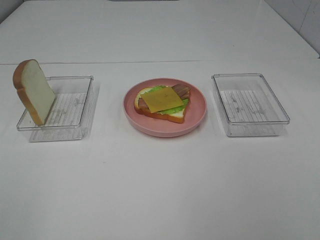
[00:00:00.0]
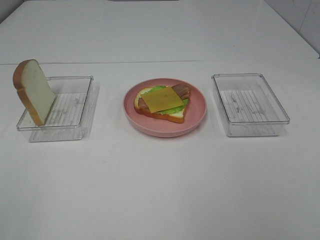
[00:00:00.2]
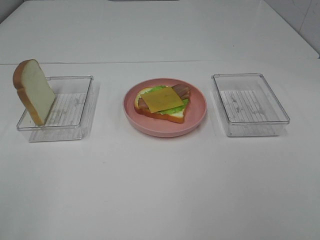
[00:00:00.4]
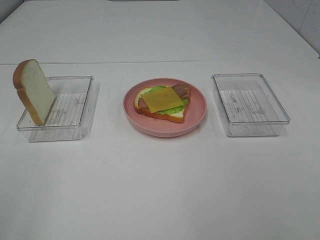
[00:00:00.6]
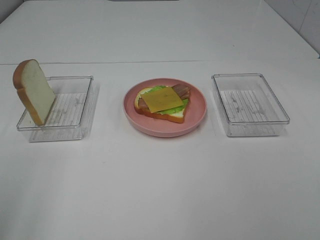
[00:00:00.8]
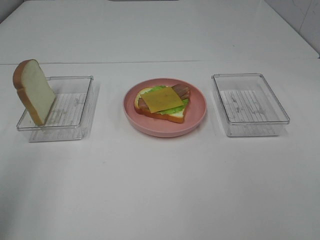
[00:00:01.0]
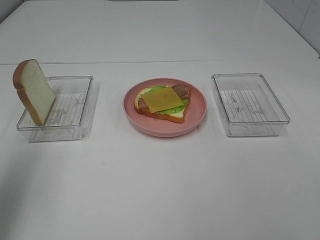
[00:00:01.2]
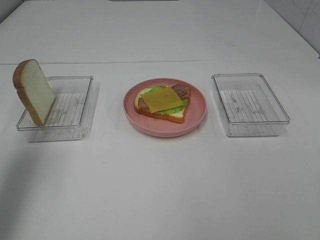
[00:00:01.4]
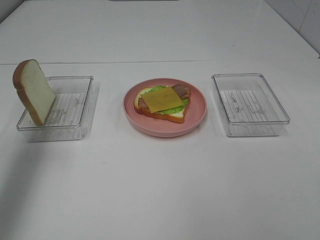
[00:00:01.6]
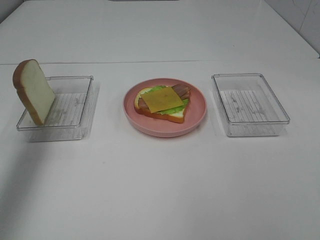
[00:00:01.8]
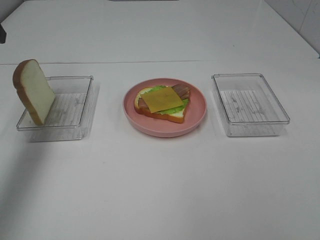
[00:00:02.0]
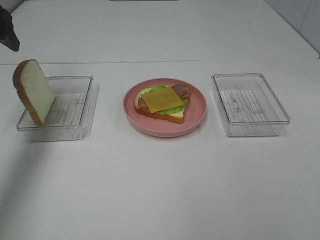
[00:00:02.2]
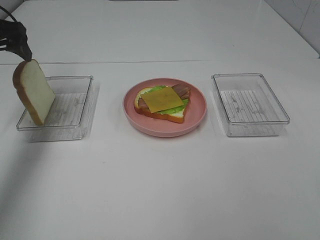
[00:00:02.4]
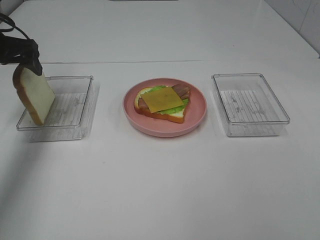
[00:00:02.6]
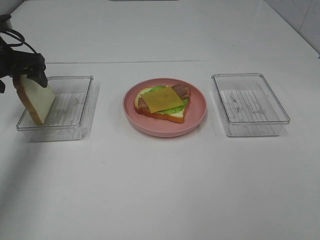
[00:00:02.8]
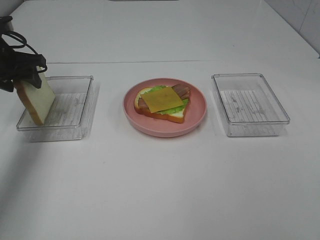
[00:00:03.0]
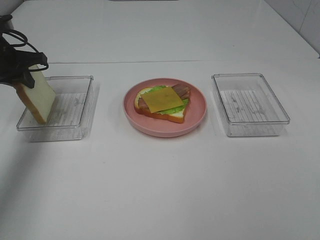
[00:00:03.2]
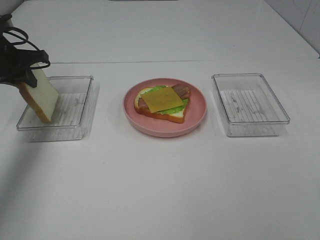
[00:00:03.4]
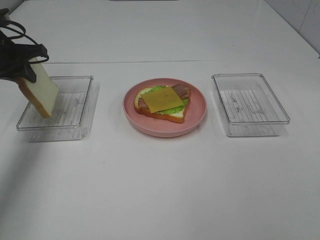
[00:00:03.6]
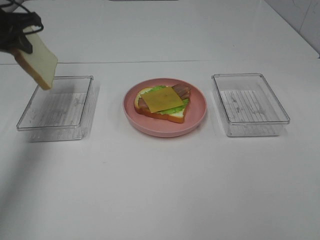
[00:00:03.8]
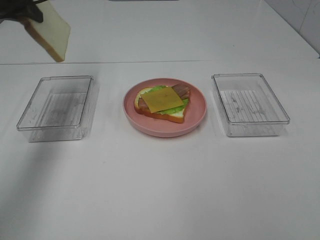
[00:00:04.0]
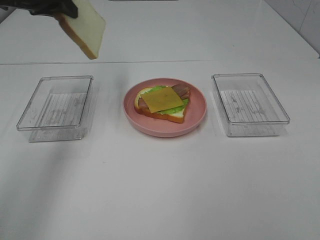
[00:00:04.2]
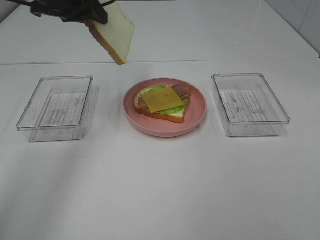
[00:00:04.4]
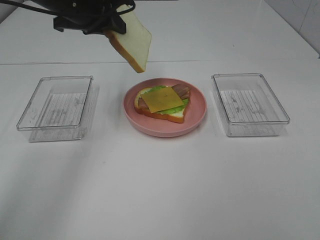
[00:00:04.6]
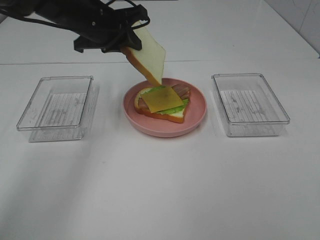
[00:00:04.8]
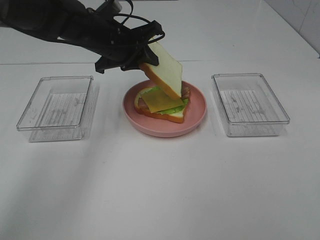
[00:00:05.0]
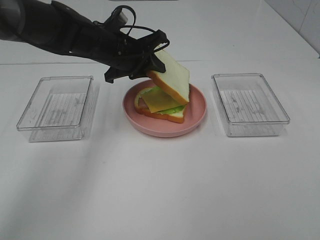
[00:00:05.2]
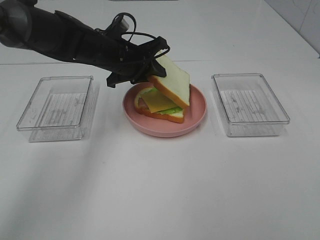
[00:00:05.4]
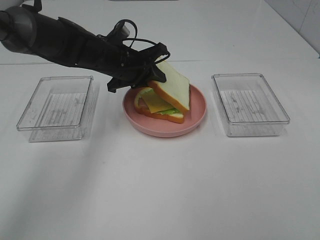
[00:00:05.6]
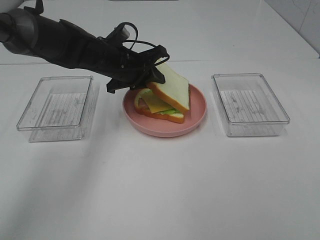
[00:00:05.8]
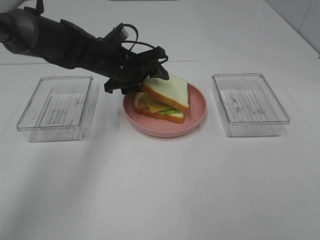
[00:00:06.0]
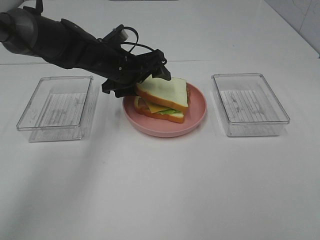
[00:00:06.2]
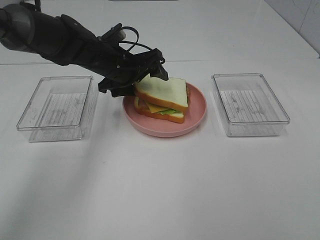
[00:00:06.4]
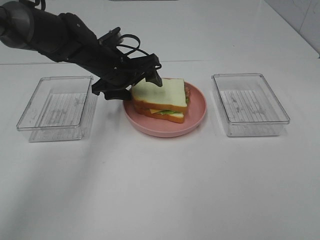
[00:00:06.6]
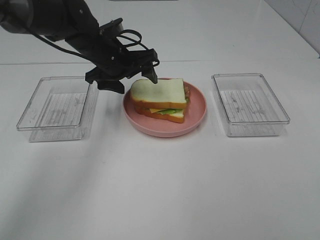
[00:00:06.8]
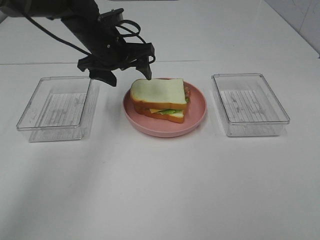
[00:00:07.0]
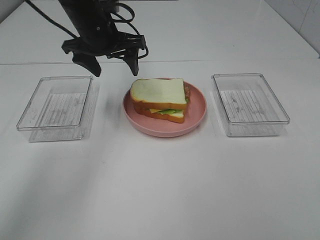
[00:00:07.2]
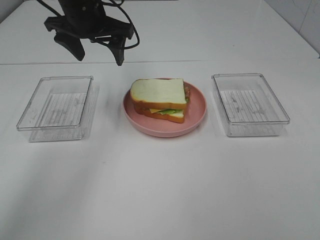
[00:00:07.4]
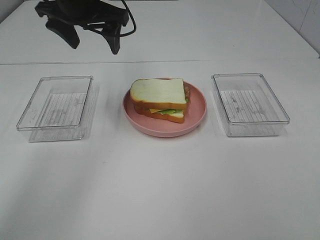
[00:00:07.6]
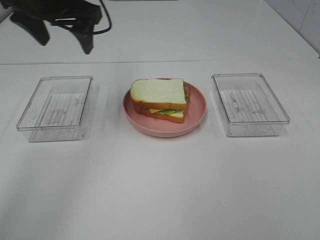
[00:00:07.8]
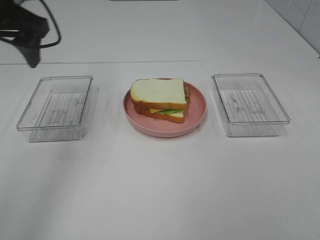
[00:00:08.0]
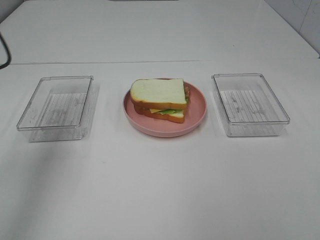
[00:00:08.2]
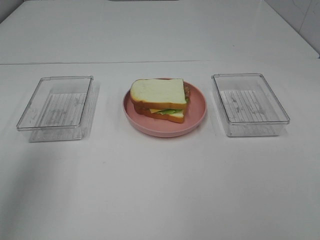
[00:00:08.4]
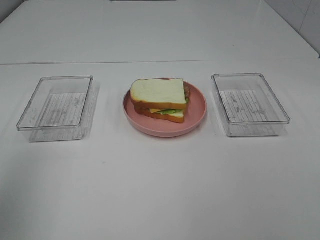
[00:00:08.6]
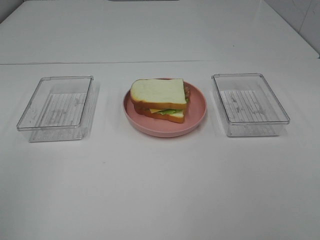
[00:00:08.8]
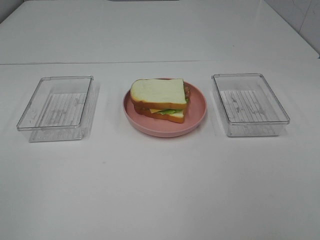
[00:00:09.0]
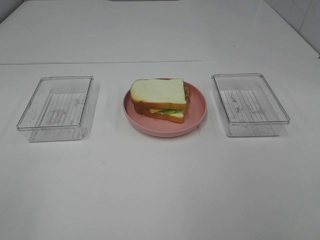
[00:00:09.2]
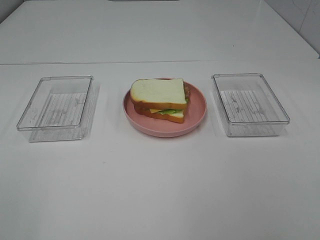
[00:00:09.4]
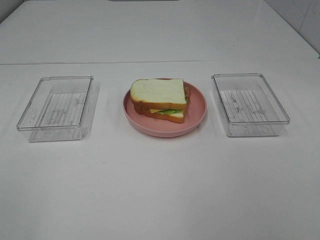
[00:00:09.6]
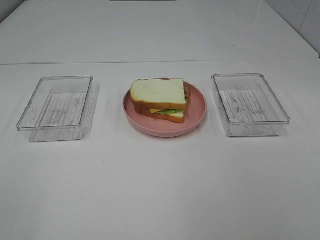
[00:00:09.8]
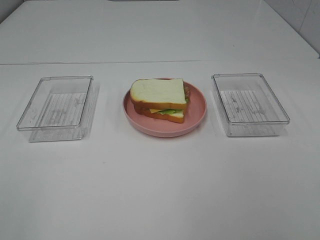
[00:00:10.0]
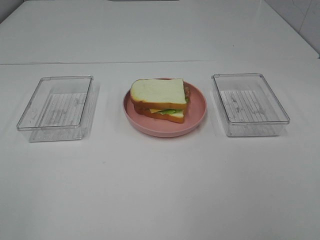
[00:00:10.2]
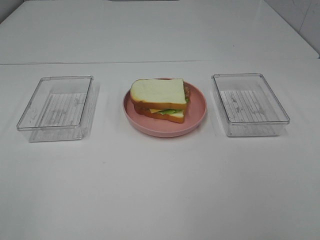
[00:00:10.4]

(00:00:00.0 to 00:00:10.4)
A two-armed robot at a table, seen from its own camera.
Task of the whole recording: Make sandwiches.
Step, 00:00:00.0 - 00:00:03.6: Left hand:grab the cheese slice.
Step, 00:00:03.8 - 00:00:07.0: Left hand:place the bread slice on the cheese slice.
00:00:00.0 - 00:00:01.4: The left gripper moves forward, some 25 cm.
00:00:01.4 - 00:00:03.0: The left gripper moves forward and downward, approximately 25 cm.
00:00:03.0 - 00:00:04.4: The left gripper goes approximately 20 cm to the right and upward, and closes up.
00:00:04.4 - 00:00:06.0: The left gripper heads downward and to the right, covering some 15 cm, and opens its fingers.
00:00:06.0 - 00:00:07.4: The left gripper is displaced upward by some 10 cm.
00:00:07.4 - 00:00:09.0: The left gripper travels backward and to the left by approximately 50 cm.

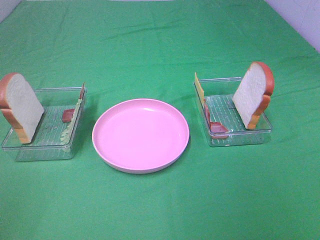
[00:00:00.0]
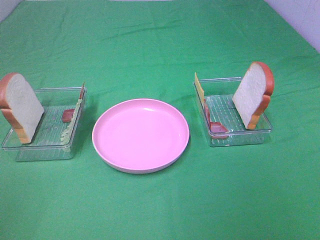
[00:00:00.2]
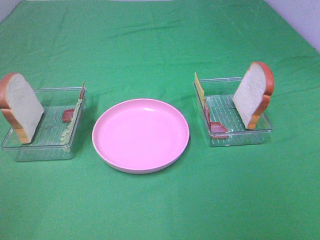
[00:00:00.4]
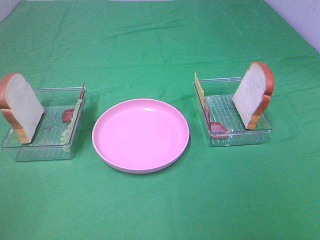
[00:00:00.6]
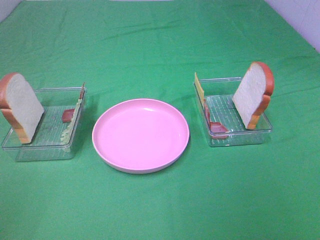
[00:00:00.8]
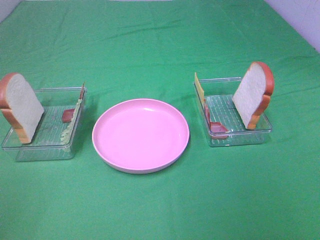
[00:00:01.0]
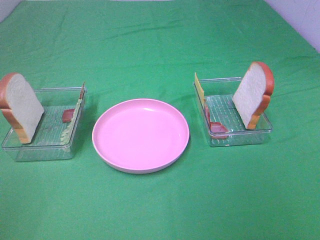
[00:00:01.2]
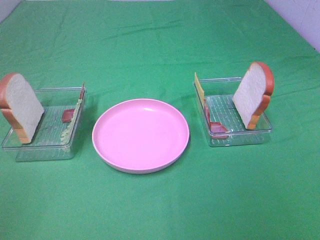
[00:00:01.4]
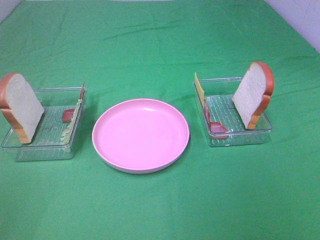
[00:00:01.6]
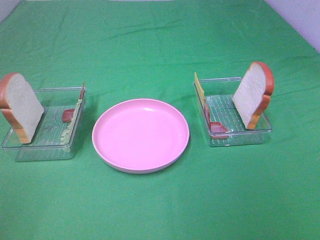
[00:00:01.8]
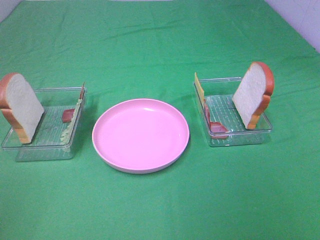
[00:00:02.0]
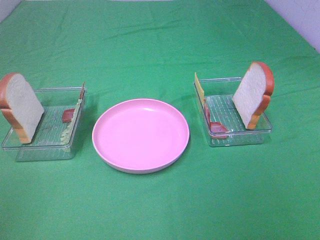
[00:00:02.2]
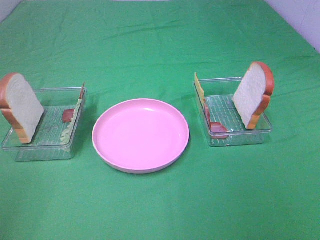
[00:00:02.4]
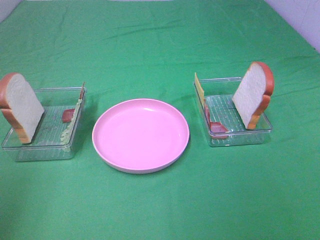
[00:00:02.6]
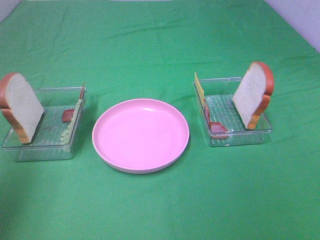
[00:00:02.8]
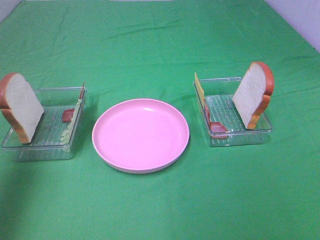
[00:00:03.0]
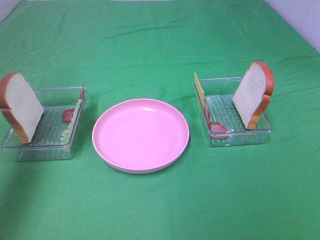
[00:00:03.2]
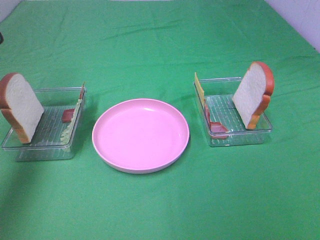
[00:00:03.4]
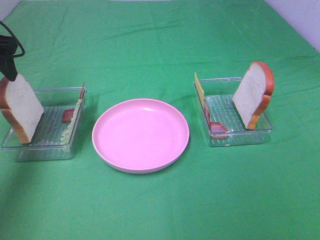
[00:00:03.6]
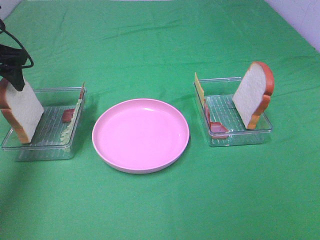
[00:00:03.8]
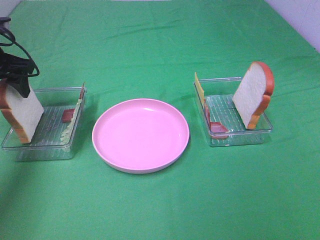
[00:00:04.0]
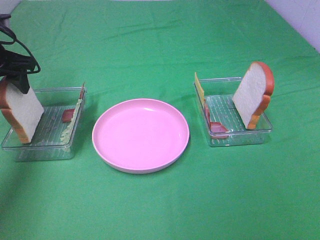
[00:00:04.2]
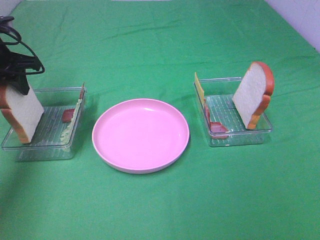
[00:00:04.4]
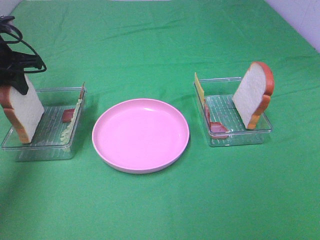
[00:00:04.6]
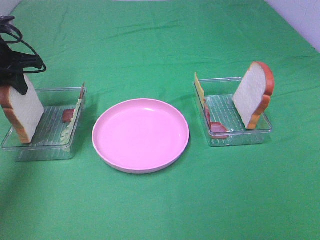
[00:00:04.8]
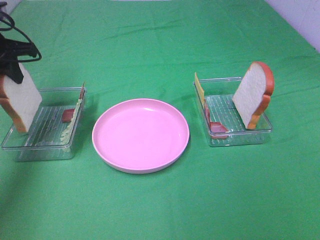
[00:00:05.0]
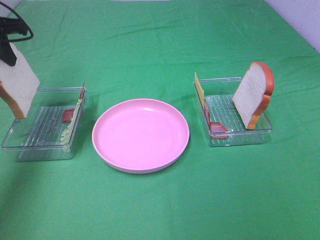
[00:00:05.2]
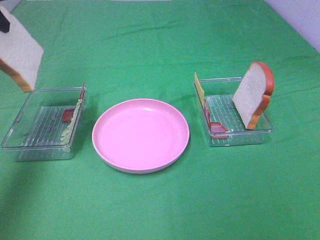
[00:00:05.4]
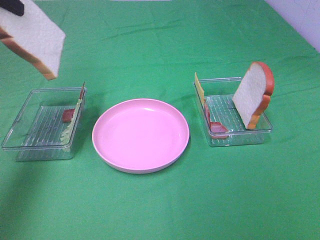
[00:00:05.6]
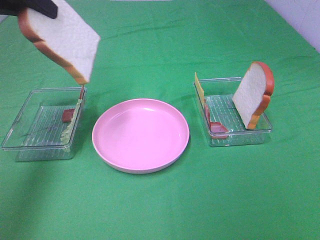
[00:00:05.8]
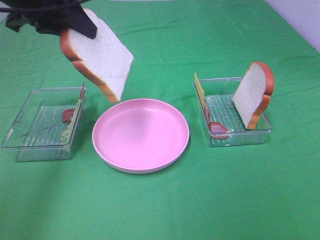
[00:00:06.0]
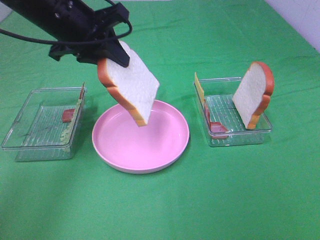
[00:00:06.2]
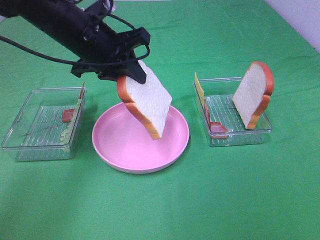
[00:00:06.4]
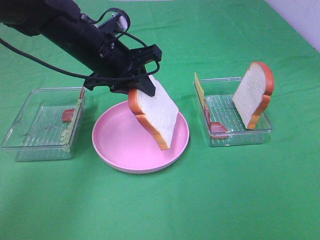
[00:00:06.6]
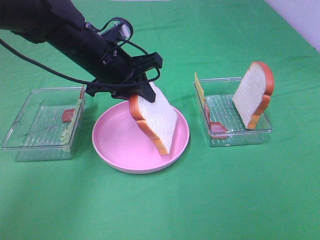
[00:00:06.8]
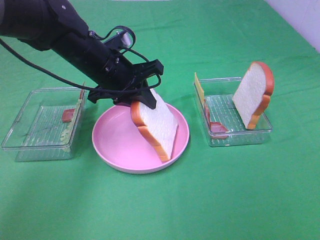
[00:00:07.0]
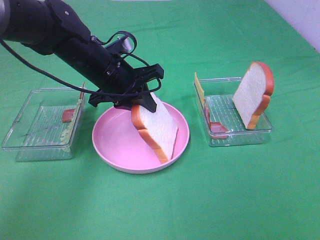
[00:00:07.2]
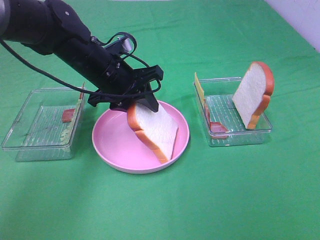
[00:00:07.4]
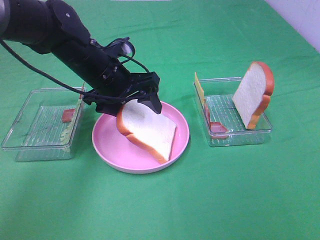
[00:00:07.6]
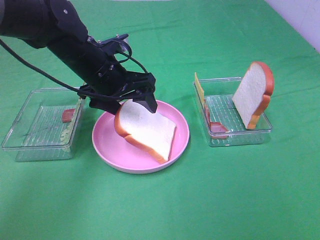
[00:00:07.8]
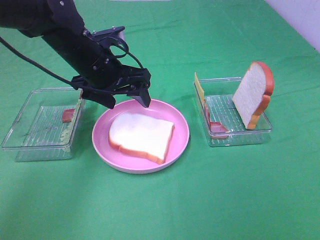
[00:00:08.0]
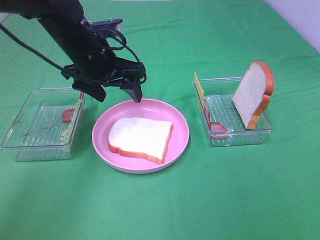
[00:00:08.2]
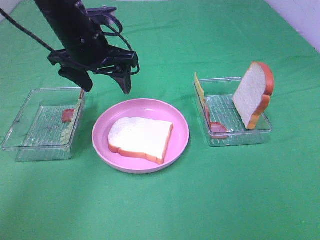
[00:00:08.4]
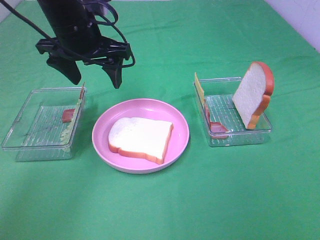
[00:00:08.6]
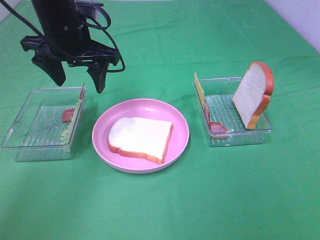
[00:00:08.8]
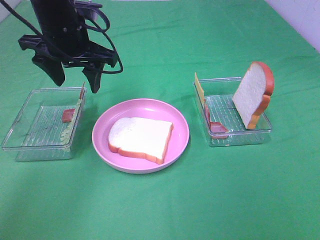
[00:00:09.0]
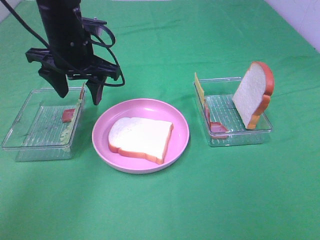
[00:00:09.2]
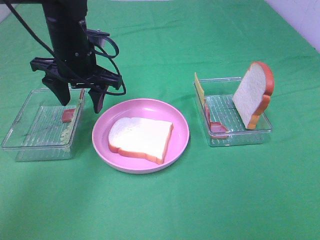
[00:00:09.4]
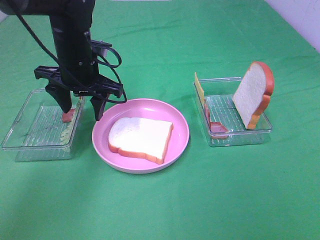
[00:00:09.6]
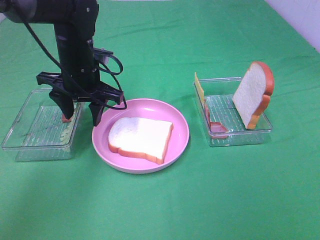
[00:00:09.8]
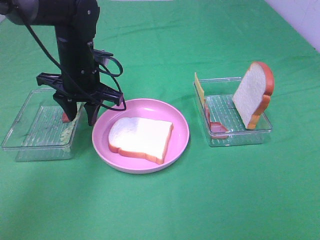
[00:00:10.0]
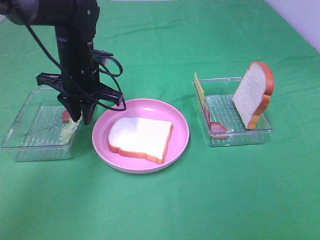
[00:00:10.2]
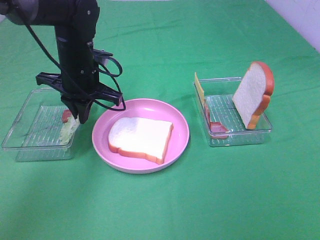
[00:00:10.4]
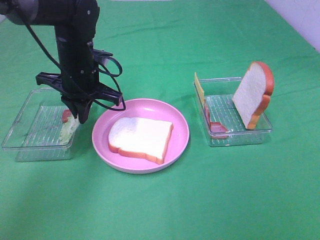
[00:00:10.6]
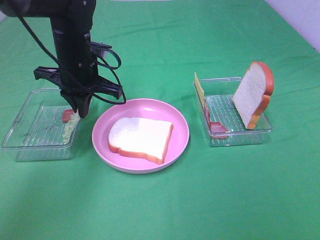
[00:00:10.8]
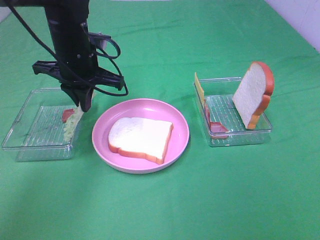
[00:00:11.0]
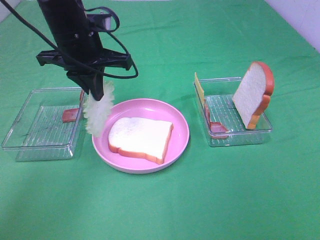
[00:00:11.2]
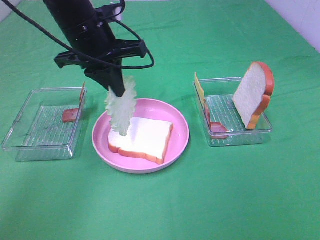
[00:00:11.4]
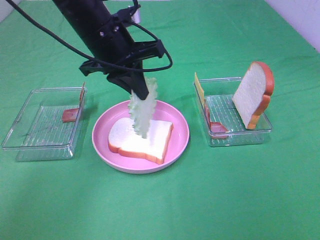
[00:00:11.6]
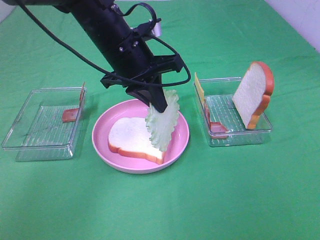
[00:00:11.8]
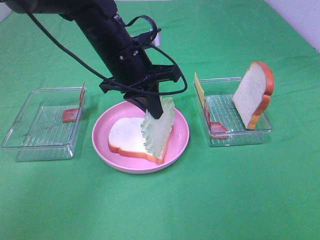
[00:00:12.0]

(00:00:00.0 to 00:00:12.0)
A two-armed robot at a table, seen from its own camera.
Task of the whole recording: Make sandwiches.
Step, 00:00:00.0 - 00:00:04.6: Left hand:grab the bread slice.
Step, 00:00:04.8 - 00:00:08.0: Left hand:place the bread slice on the plate.
Step, 00:00:08.2 - 00:00:10.4: Left hand:grab the lettuce slice.
00:00:00.0 - 00:00:01.6: Neither gripper changes place.
00:00:01.6 - 00:00:03.0: The left gripper is displaced forward by some 25 cm.
00:00:03.0 - 00:00:04.4: The left gripper heads forward and downward, covering roughly 25 cm, and closes up.
00:00:04.4 - 00:00:06.0: The left gripper heads to the right, upward and backward, covering approximately 20 cm.
00:00:06.0 - 00:00:07.6: The left gripper heads downward and to the right, covering approximately 15 cm, and opens its fingers.
00:00:07.6 - 00:00:09.0: The left gripper moves upward, roughly 10 cm.
00:00:09.0 - 00:00:10.4: The left gripper is displaced downward by approximately 10 cm, and closes up.
00:00:10.4 - 00:00:12.0: The left gripper heads to the right, covering approximately 10 cm.
